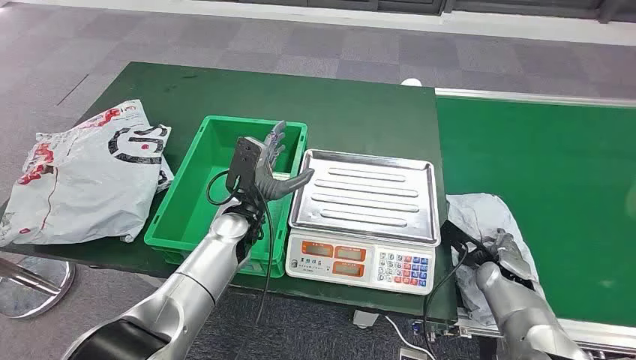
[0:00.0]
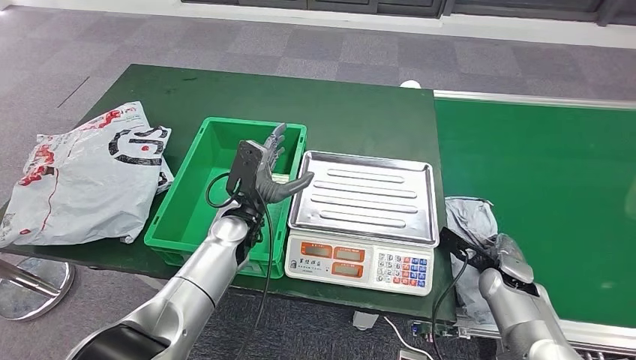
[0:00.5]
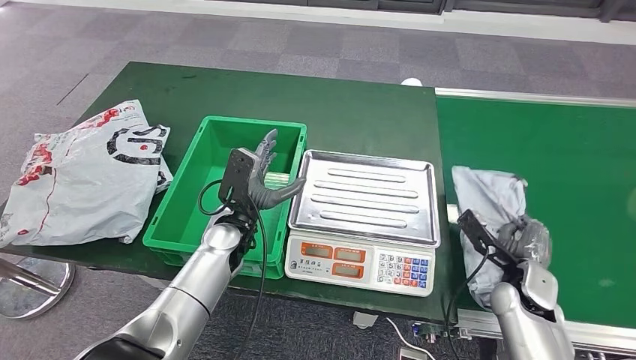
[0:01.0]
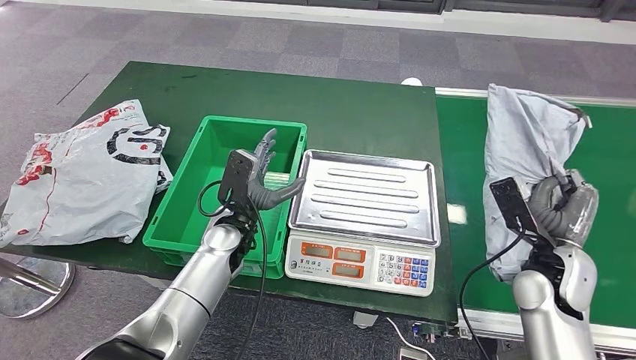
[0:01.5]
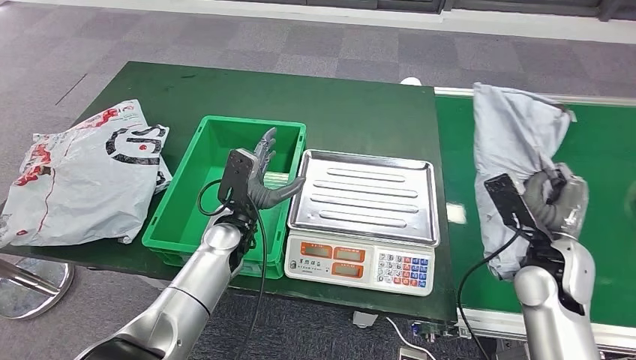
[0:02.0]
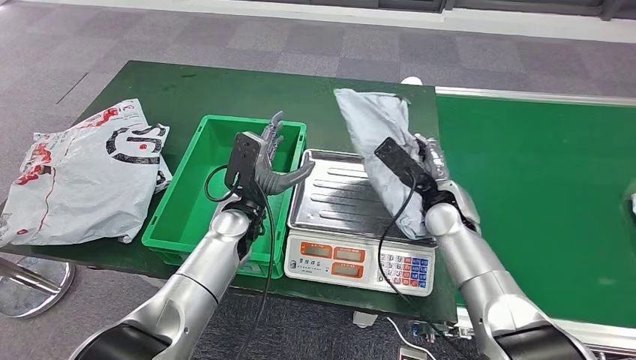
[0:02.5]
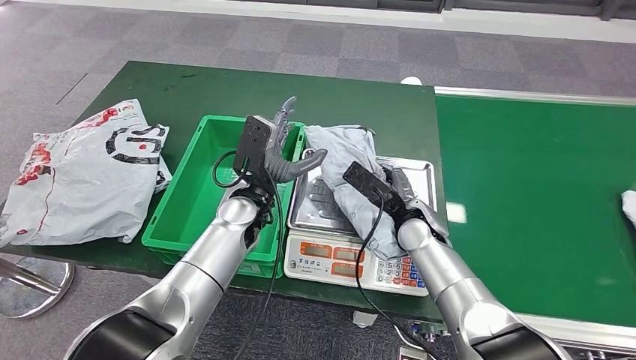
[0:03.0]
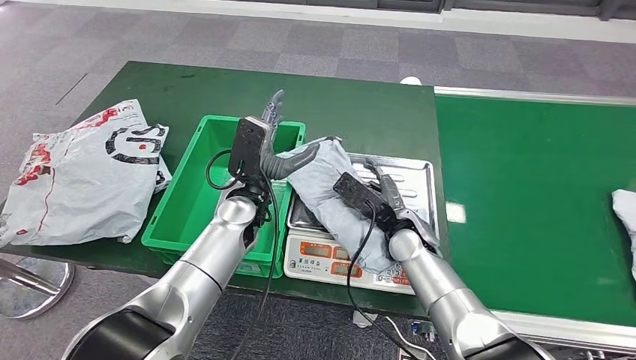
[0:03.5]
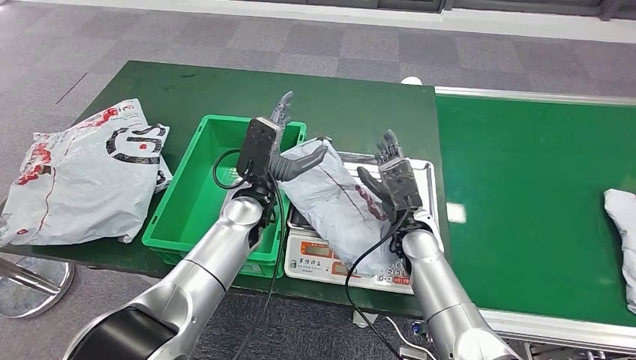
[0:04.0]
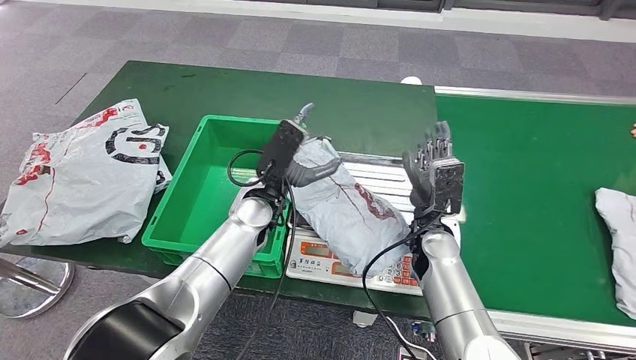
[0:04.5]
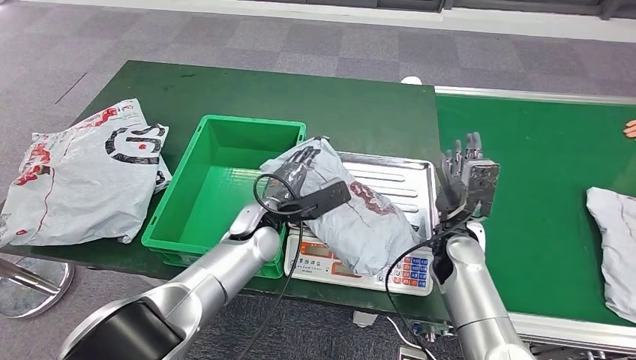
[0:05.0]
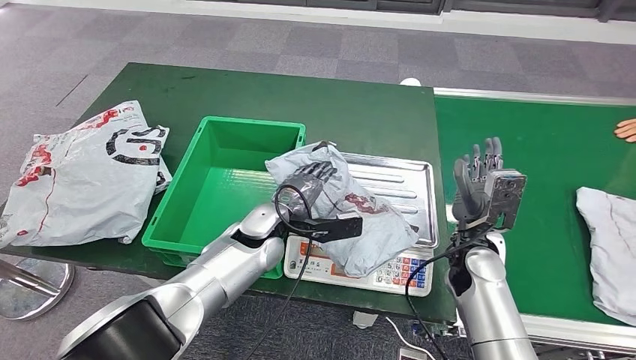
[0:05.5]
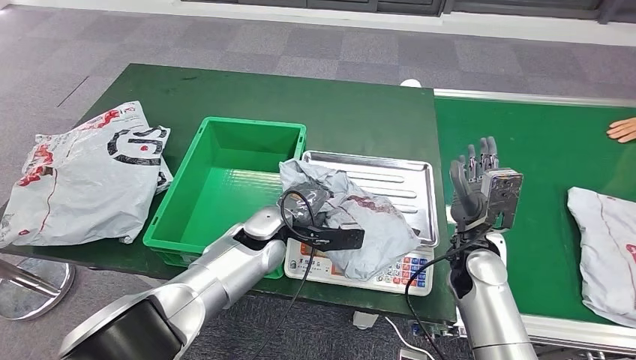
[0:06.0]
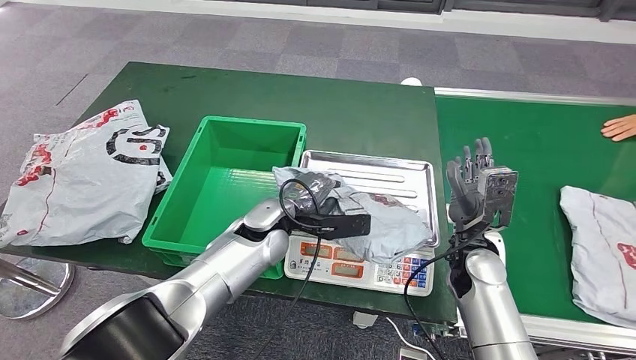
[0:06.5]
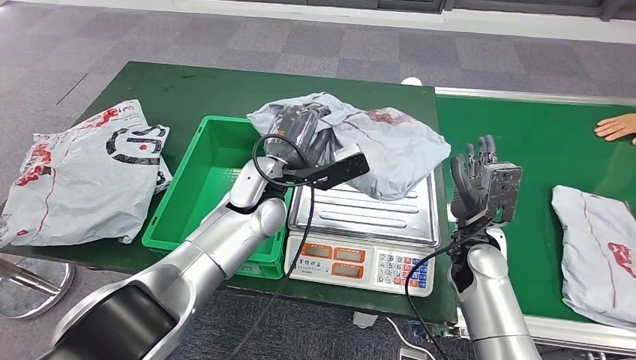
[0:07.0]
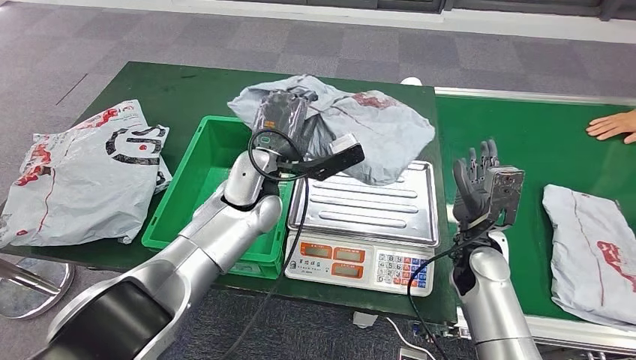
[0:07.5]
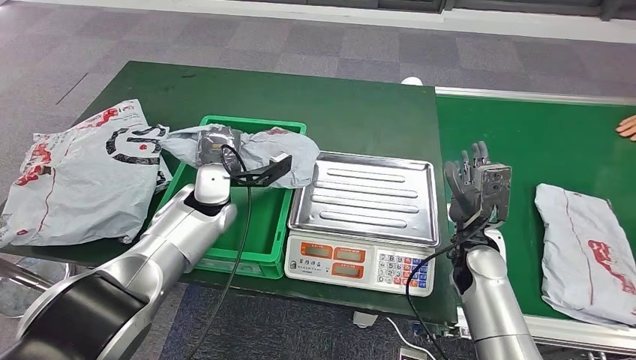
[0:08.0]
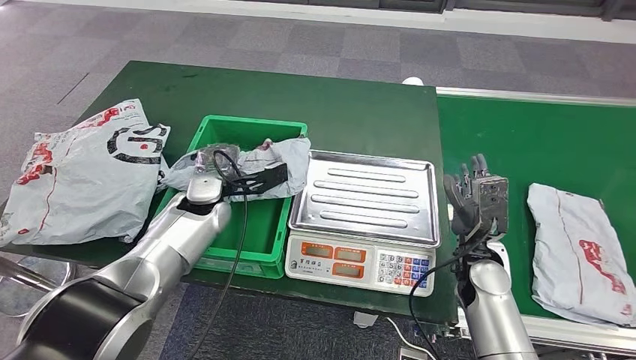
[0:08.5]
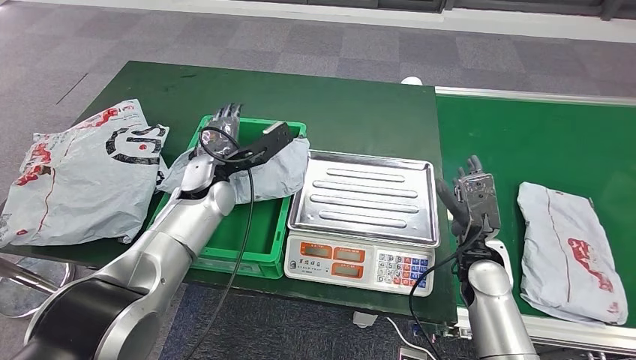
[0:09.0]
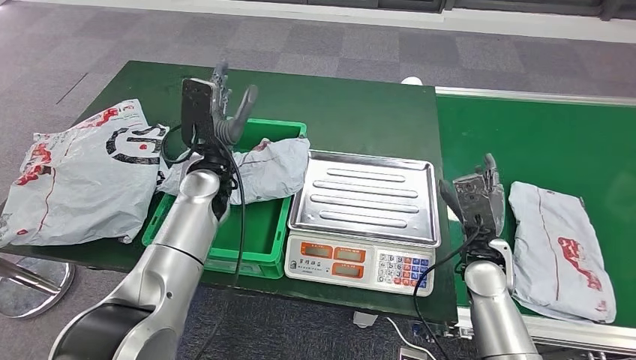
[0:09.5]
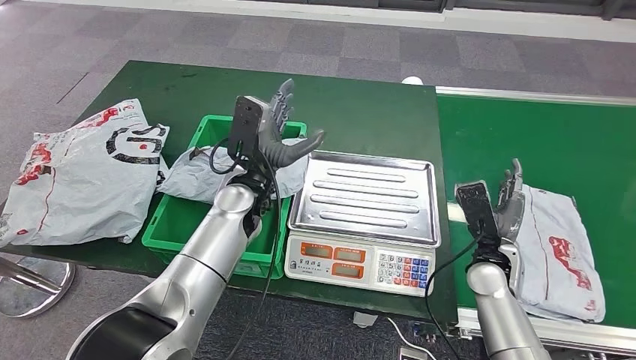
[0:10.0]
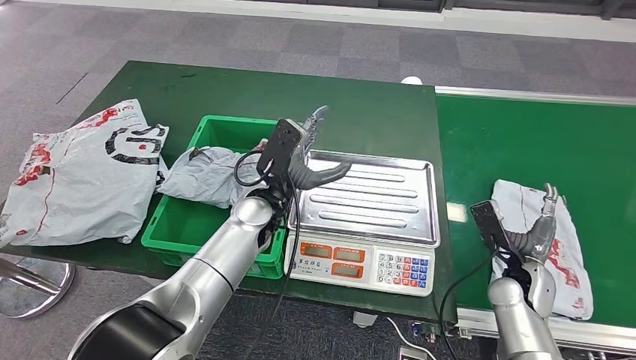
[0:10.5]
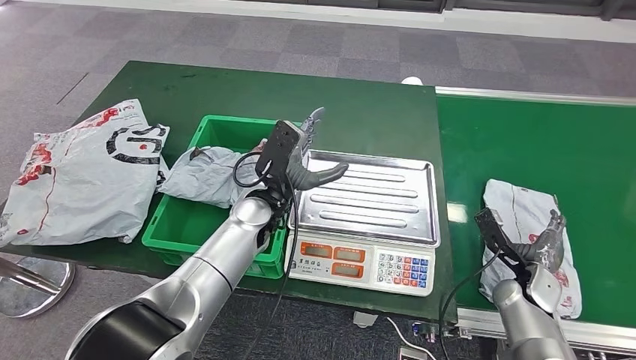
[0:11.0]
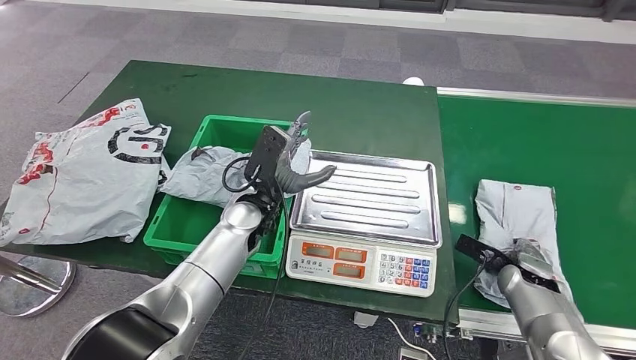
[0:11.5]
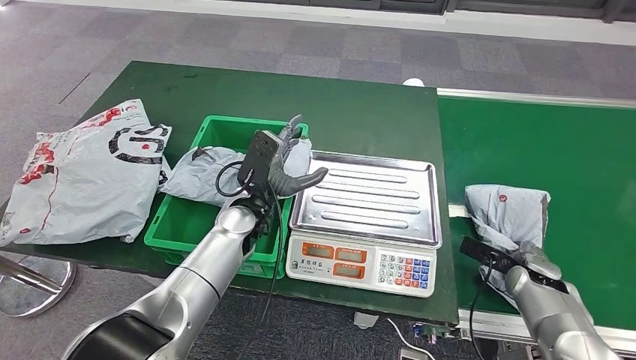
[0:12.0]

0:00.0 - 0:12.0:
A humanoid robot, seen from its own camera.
Step, 0:00.0 - 0:01.5: Take the parcel off the conveyor belt.
Step, 0:02.0 - 0:04.5: Place the parcel onto the inbound machine.
Step, 0:05.0 - 0:07.0: Pick up the parcel from the inbound machine.
Step, 0:07.5 - 0:10.0: Put the parcel inside the courier box.

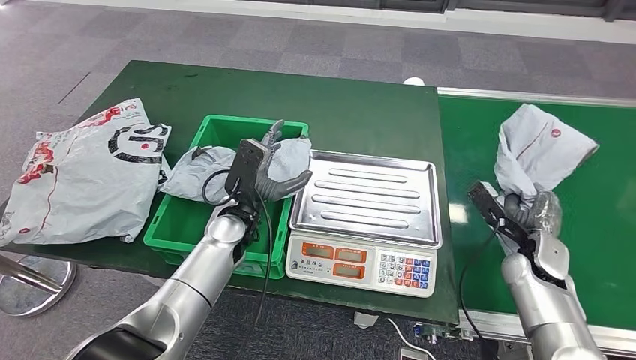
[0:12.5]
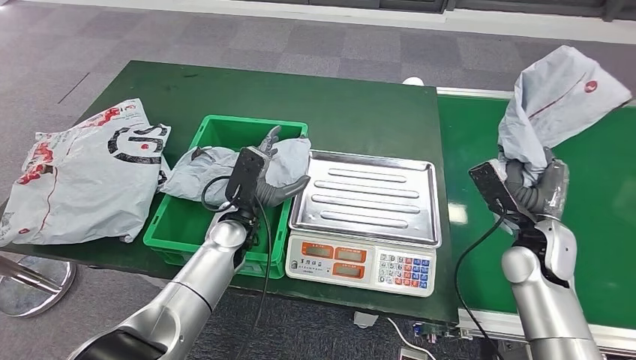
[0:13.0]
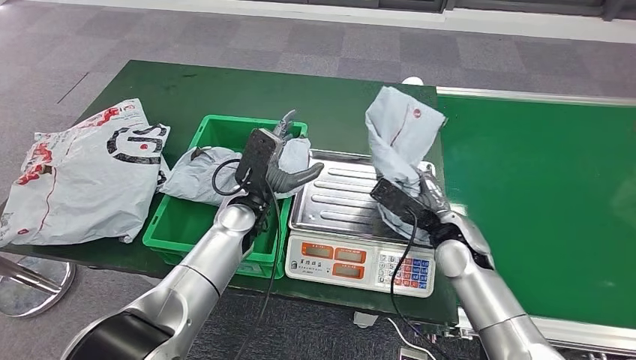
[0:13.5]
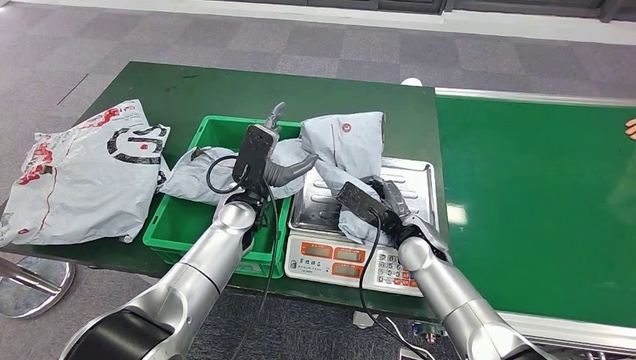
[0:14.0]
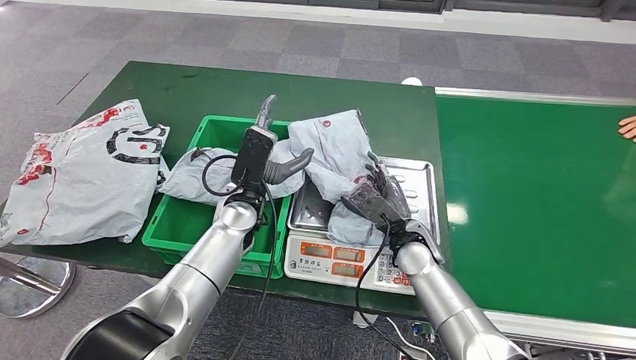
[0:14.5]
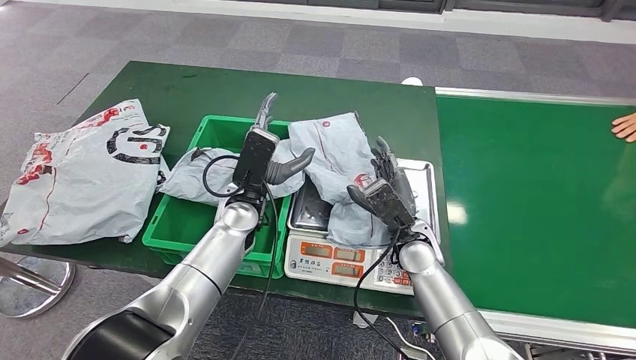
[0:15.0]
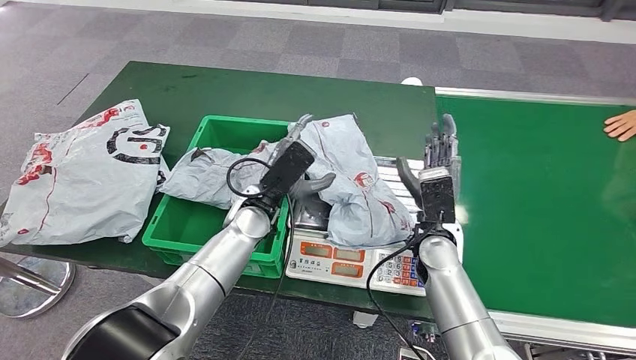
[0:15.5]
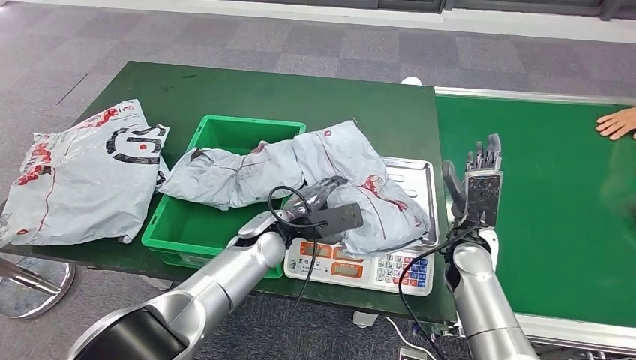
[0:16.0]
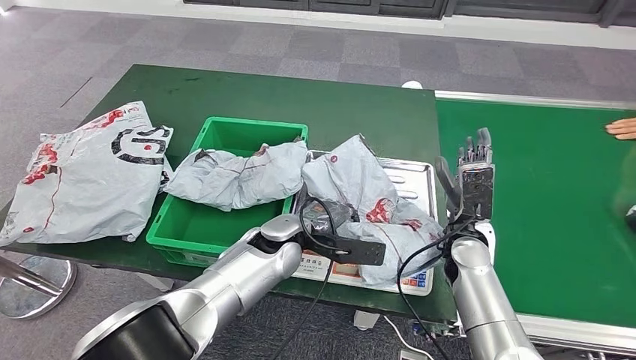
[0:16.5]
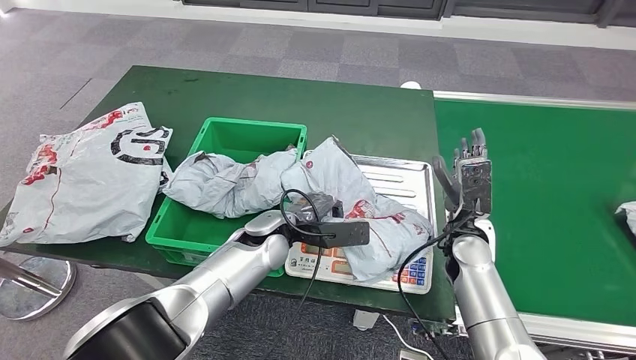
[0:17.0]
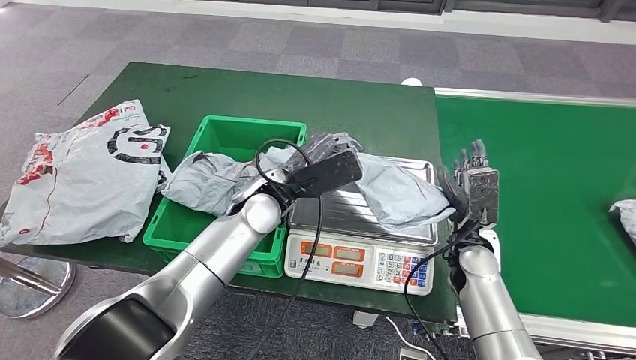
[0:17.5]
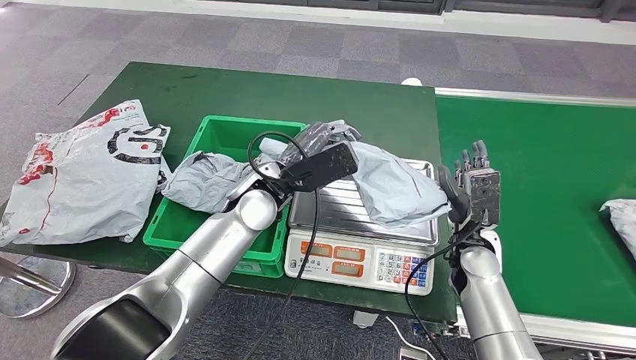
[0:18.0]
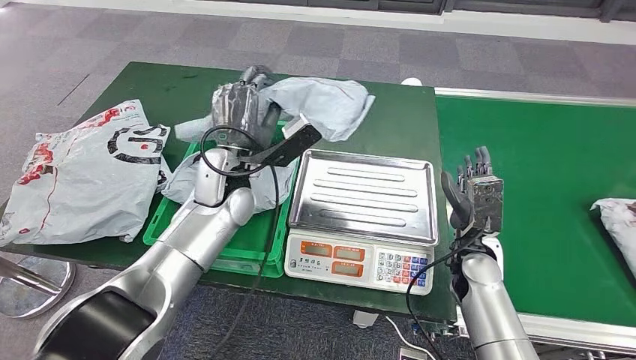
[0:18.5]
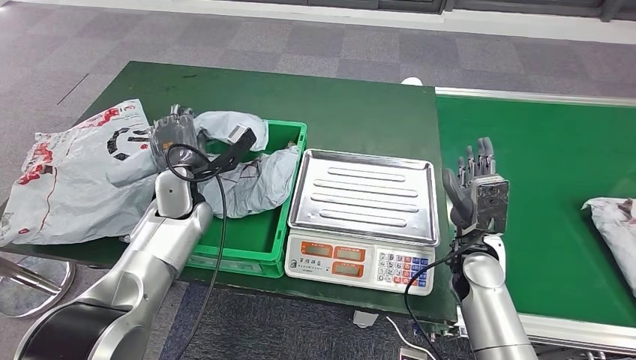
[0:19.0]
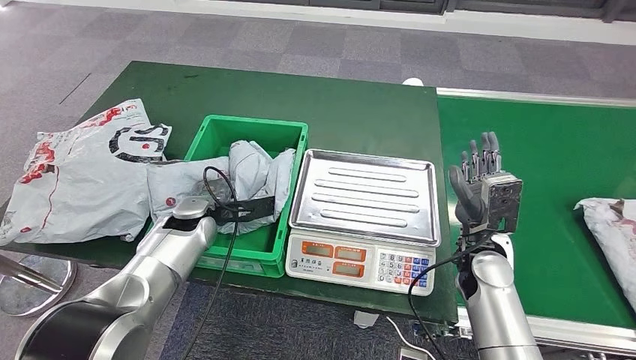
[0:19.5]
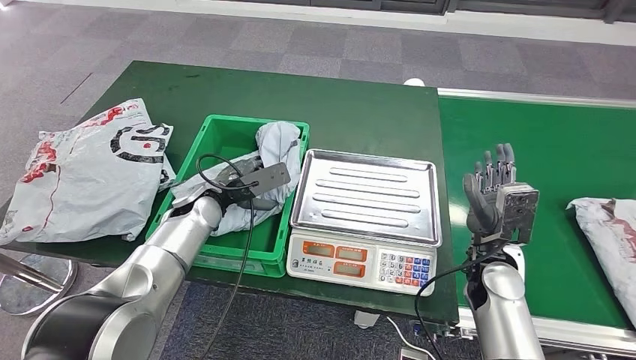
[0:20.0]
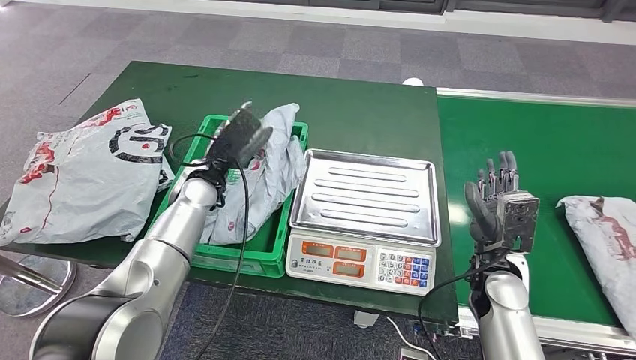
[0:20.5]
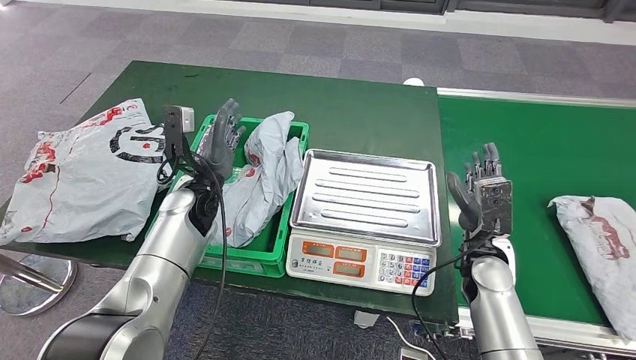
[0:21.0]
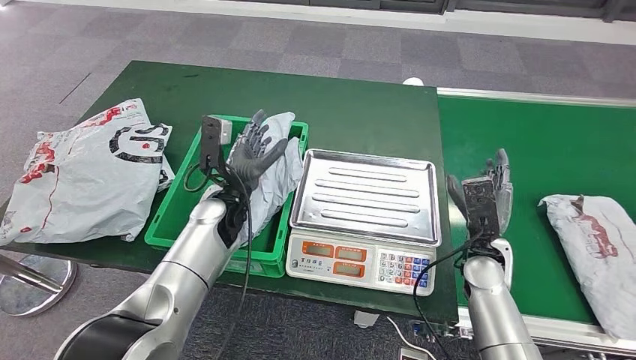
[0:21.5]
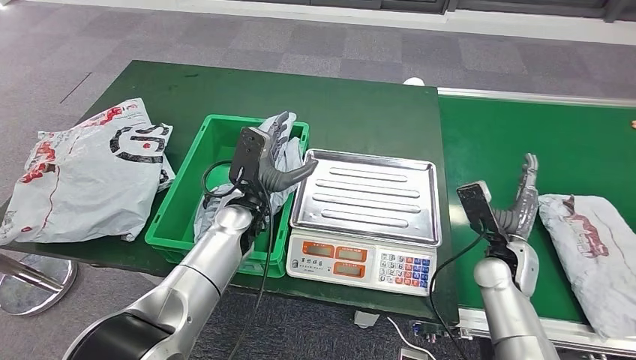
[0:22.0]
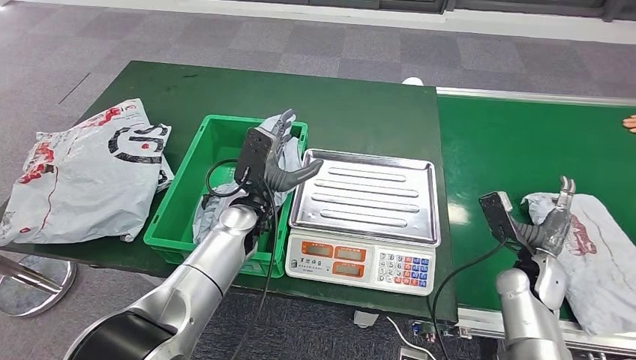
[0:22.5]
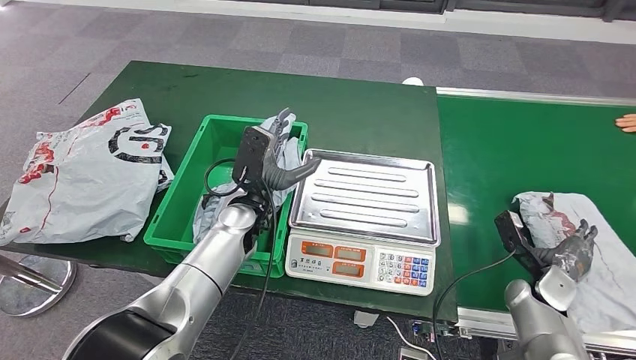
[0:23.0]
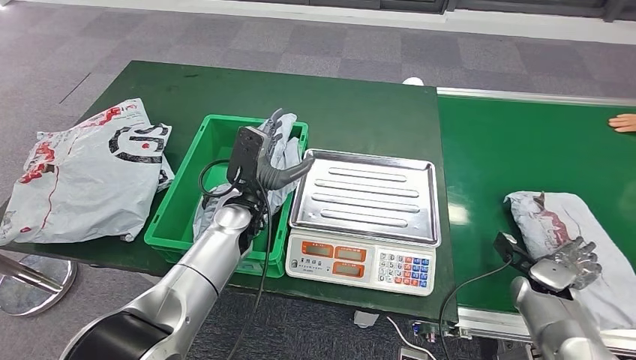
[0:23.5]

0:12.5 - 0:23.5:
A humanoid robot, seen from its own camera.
Step, 0:13.0 - 0:15.5: Place the parcel onto the inbound machine.
Step, 0:16.0 - 0:18.0: Pick up the parcel from the inbound machine.
Step, 0:18.5 - 0:20.0: Place the parcel into the delivery box.
0:14.5 - 0:16.0: The right hand is displaced to the right by approximately 10 cm. Meanwhile the left hand moves some 5 cm.
0:20.0 - 0:21.5: The left hand is displaced to the right by roughly 5 cm.
0:21.5 - 0:23.5: The right hand shifts some 15 cm to the right and downward.
